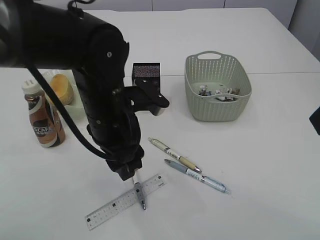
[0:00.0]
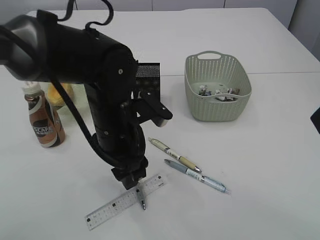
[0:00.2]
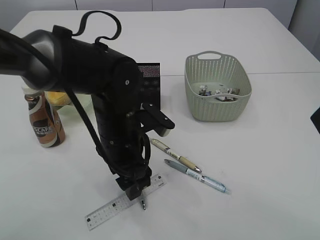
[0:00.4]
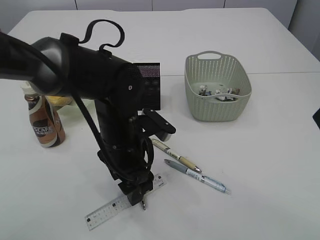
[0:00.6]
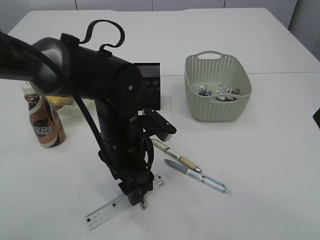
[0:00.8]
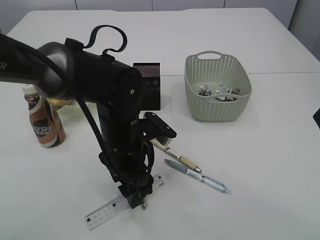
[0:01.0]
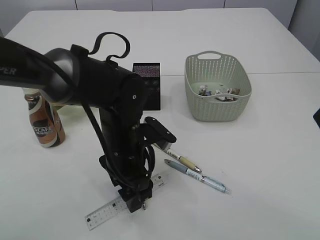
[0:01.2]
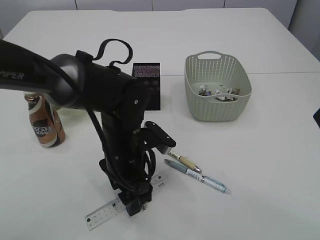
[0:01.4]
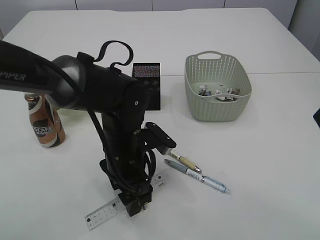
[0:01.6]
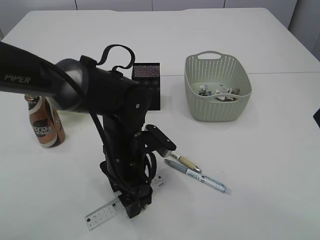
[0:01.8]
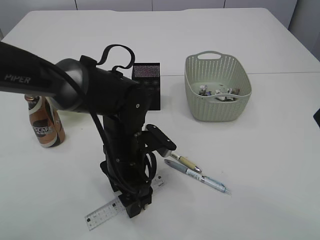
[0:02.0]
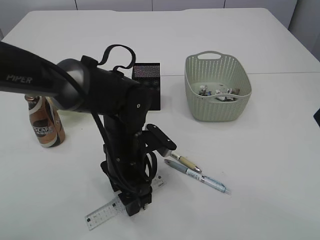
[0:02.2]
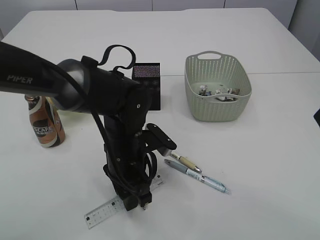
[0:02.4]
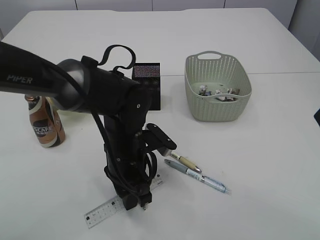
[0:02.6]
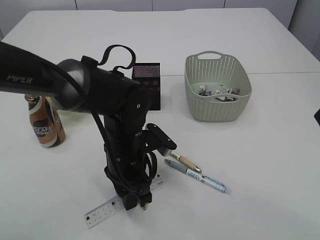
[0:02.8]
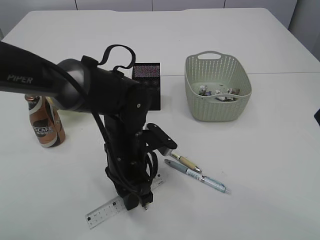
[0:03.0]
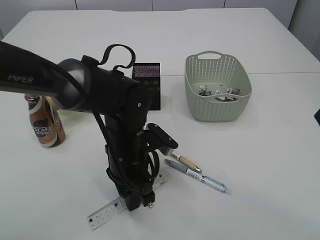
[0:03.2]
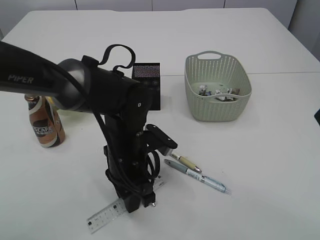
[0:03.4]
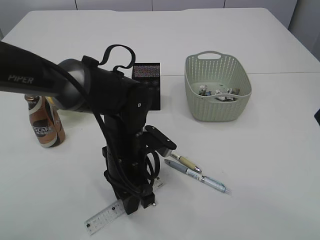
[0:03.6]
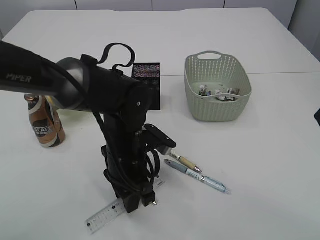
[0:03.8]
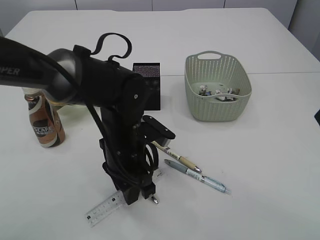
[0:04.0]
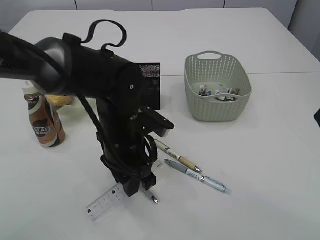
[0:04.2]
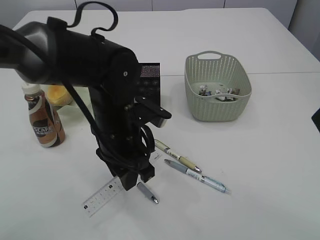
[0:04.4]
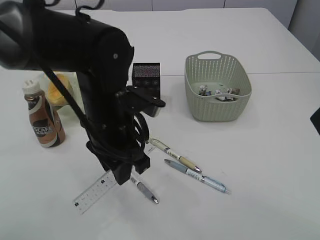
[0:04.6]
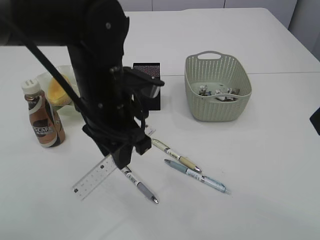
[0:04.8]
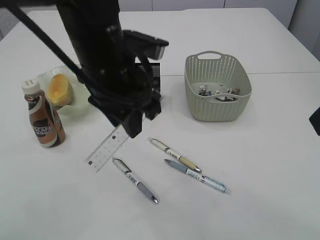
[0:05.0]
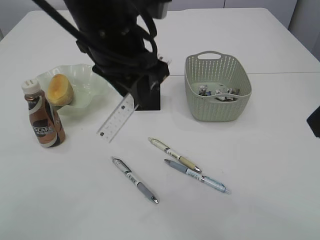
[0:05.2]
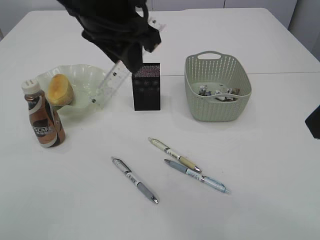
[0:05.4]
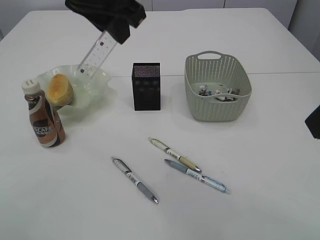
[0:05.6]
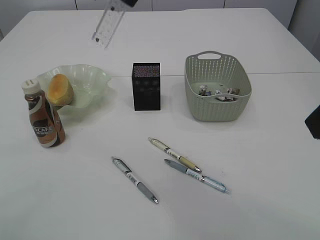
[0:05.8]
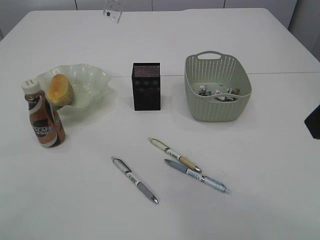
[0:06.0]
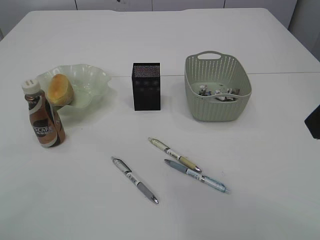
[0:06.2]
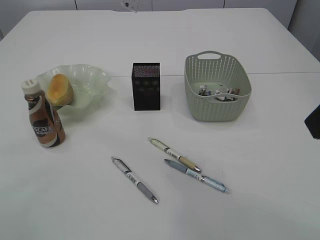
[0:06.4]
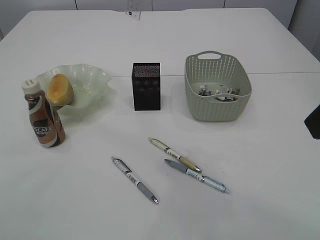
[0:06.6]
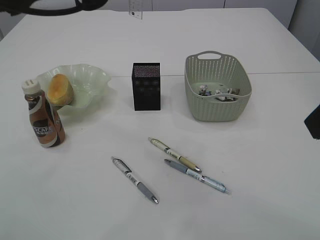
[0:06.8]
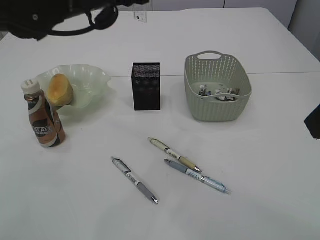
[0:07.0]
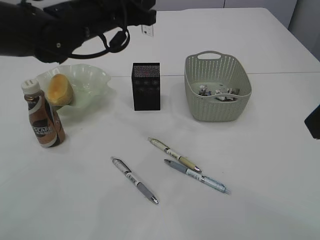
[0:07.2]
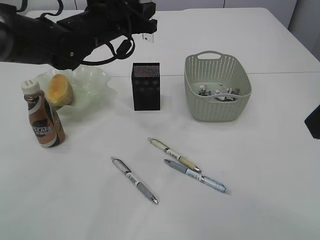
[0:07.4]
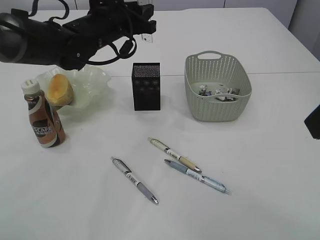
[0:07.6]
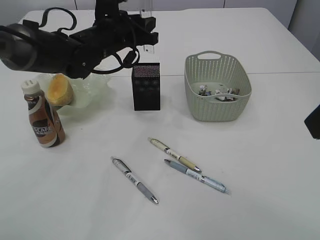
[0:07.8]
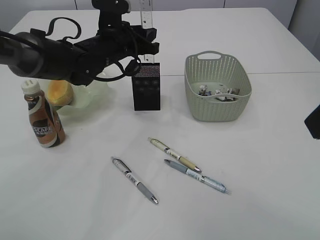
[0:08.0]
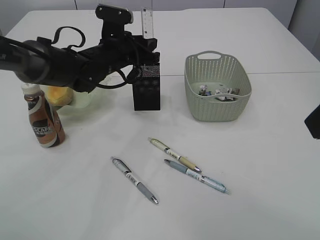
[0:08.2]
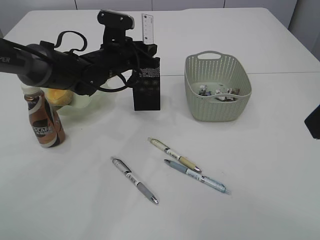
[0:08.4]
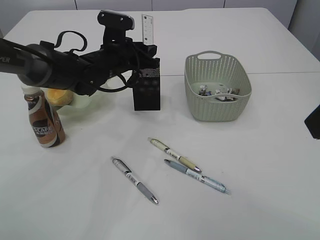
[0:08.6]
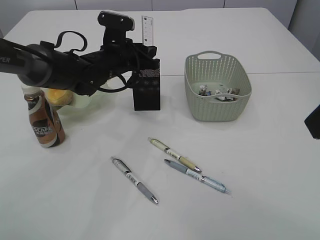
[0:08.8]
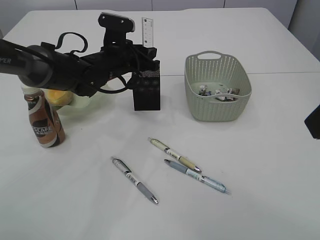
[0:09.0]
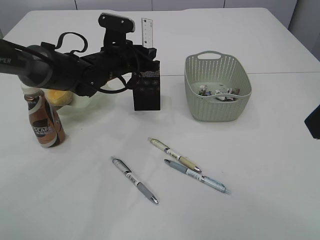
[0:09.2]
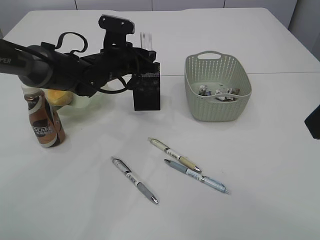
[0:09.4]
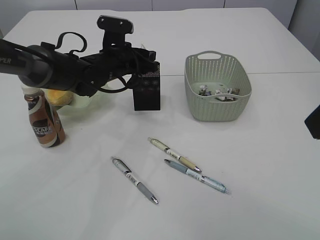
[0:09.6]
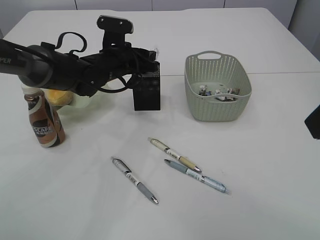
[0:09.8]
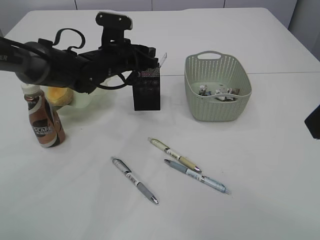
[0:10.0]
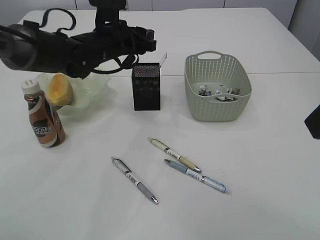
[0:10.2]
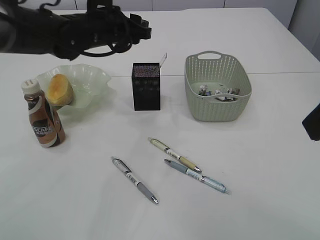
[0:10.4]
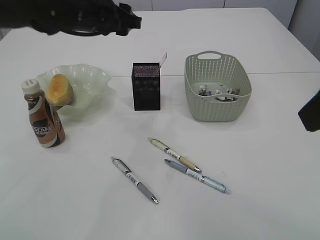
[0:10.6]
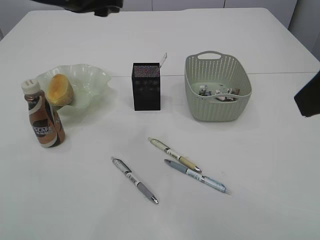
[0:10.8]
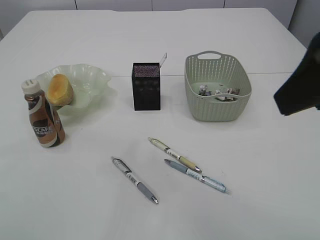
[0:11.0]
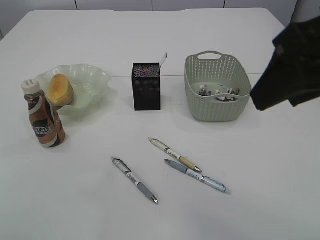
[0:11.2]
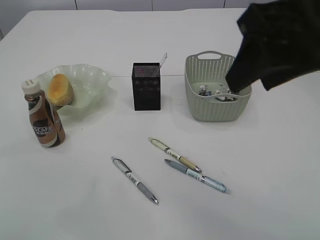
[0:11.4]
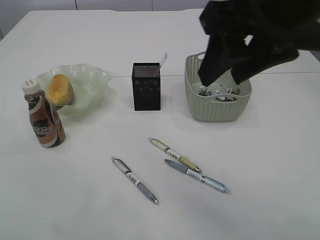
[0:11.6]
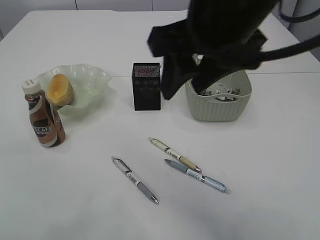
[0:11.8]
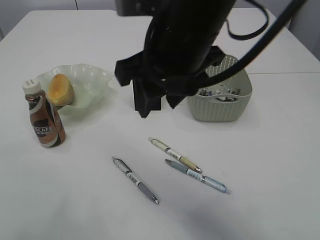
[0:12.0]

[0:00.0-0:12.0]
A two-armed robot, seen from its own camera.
Step, 0:00.0 to 0:04.6: pick up the ruler.
Step, 0:04.8 to 0:10.2: Place the ruler into the pen holder.
0:00.0 to 0:01.6: The left gripper shifts roughly 10 cm downward.
0:01.6 to 0:03.0: The left gripper closes up.
0:03.0 to 0:04.4: The left gripper shifts some 5 cm upward.
0:04.4 to 0:06.0: The left gripper moves upward, about 25 cm.
0:06.0 to 0:07.6: The left gripper is displaced downward and forward by roughly 25 cm.
0:07.6 to 0:09.0: The left gripper goes about 10 cm downward.
0:09.0 to 0:10.4: The left gripper is displaced upward by approximately 5 cm.
0:10.4 to 0:12.0: The left gripper goes roughly 35 cm upward, backward and to the left. The right gripper goes approximately 20 cm to the left and forward.

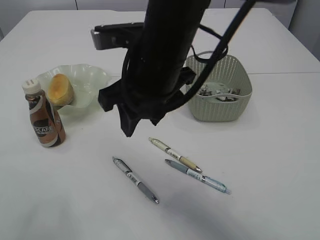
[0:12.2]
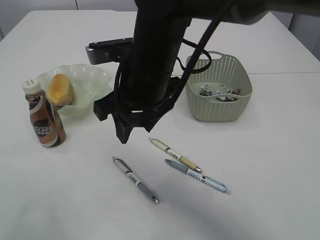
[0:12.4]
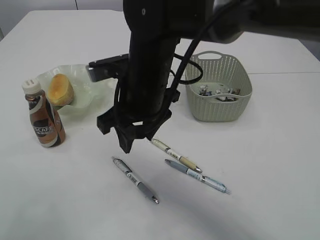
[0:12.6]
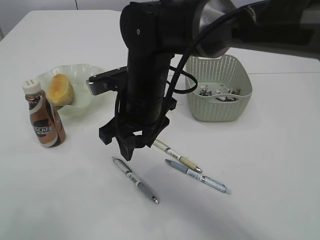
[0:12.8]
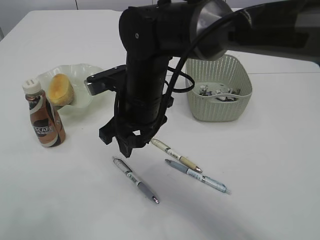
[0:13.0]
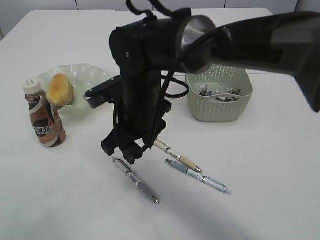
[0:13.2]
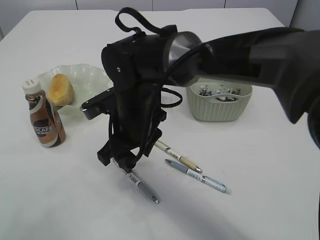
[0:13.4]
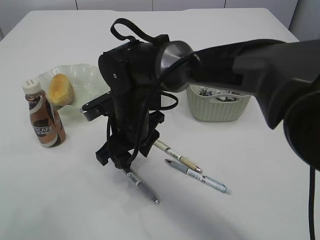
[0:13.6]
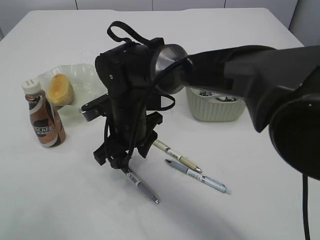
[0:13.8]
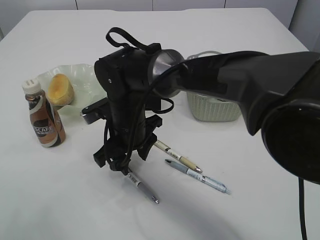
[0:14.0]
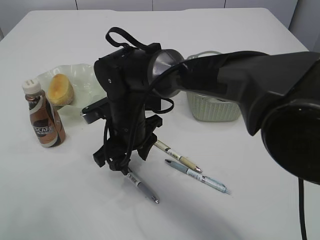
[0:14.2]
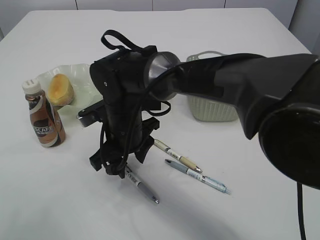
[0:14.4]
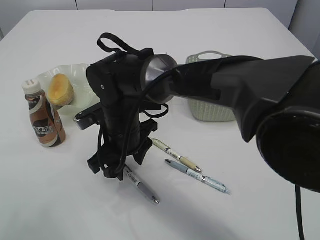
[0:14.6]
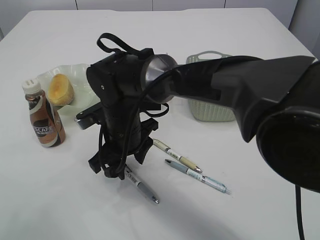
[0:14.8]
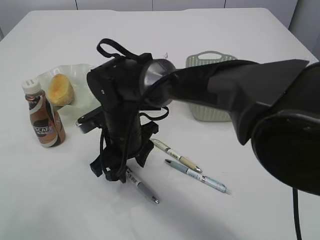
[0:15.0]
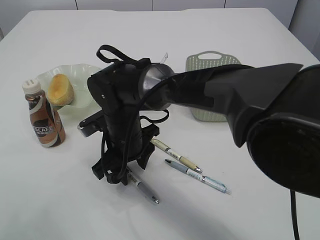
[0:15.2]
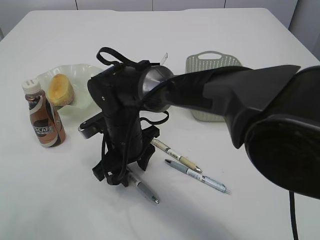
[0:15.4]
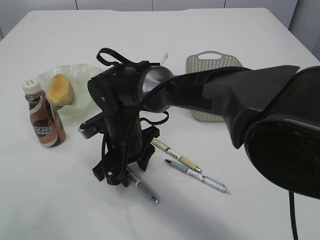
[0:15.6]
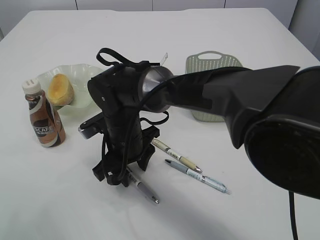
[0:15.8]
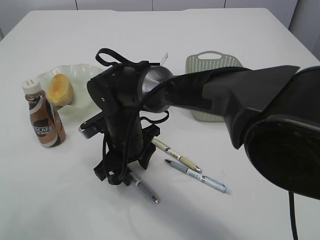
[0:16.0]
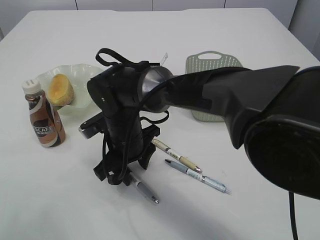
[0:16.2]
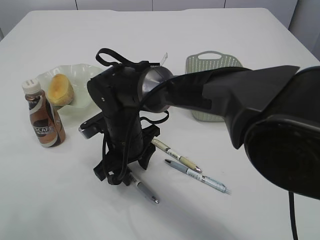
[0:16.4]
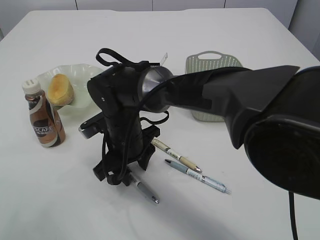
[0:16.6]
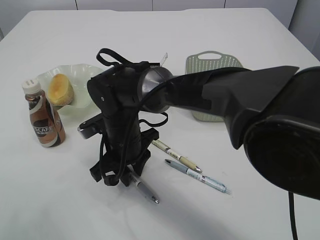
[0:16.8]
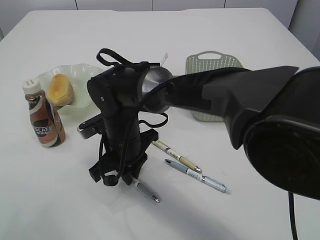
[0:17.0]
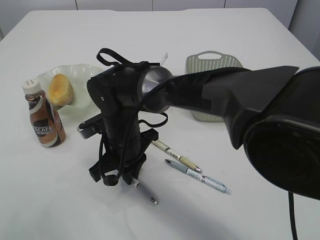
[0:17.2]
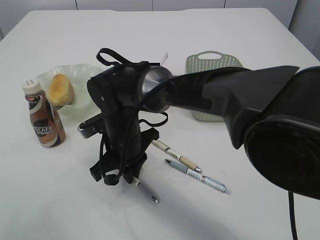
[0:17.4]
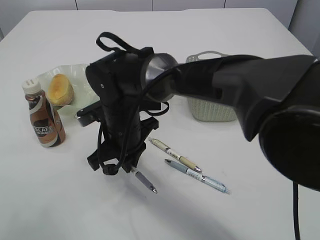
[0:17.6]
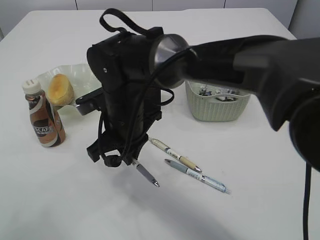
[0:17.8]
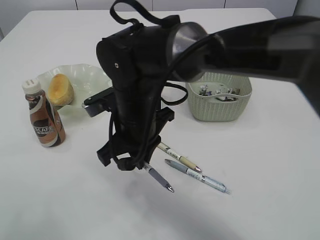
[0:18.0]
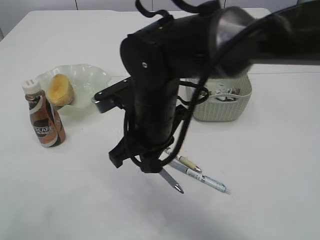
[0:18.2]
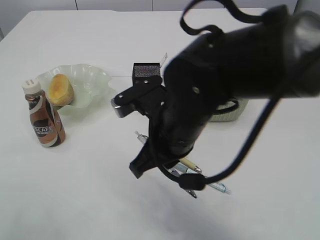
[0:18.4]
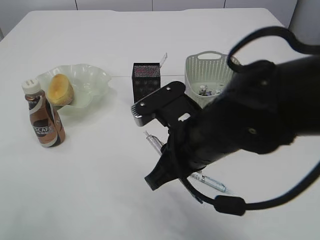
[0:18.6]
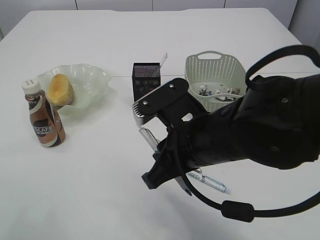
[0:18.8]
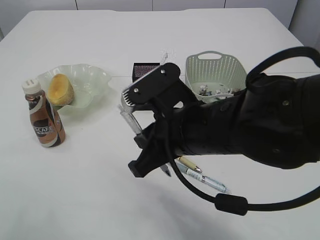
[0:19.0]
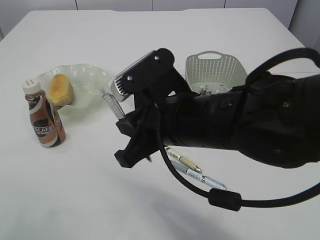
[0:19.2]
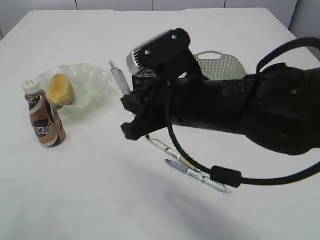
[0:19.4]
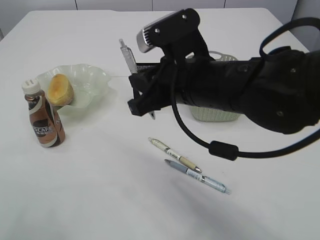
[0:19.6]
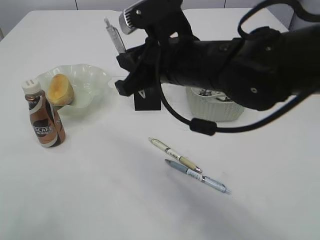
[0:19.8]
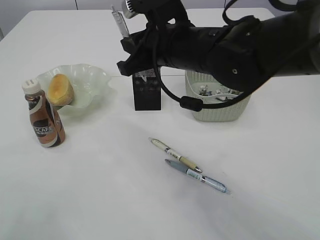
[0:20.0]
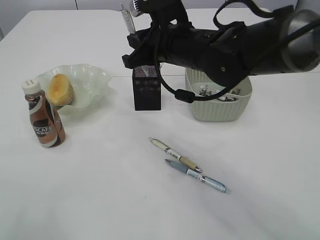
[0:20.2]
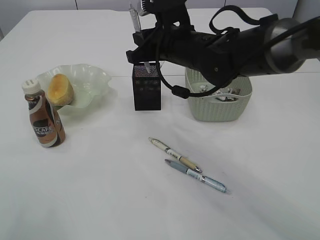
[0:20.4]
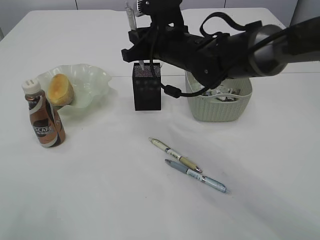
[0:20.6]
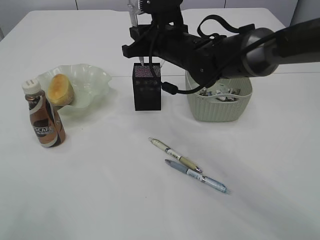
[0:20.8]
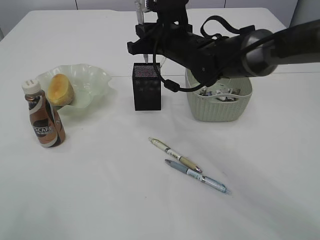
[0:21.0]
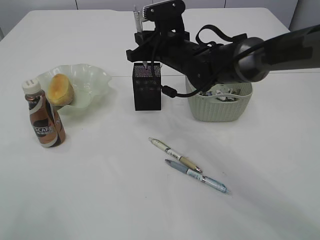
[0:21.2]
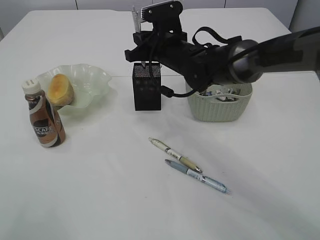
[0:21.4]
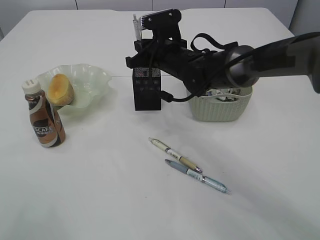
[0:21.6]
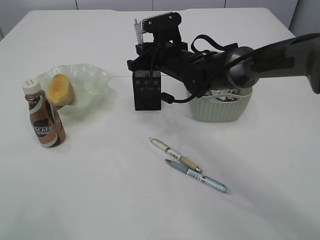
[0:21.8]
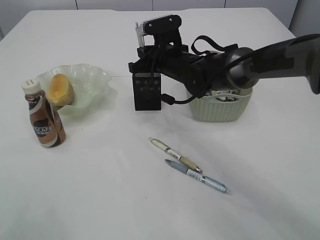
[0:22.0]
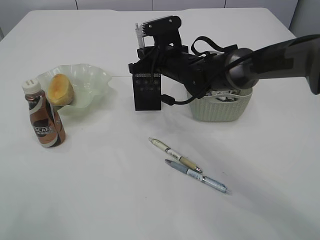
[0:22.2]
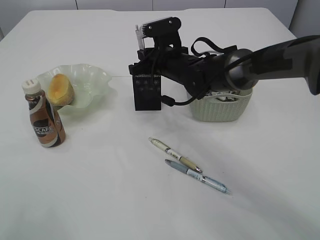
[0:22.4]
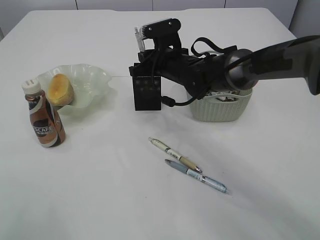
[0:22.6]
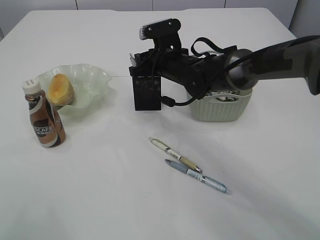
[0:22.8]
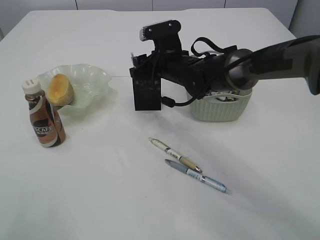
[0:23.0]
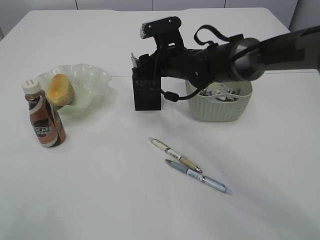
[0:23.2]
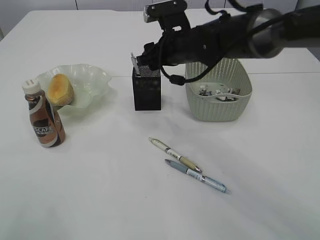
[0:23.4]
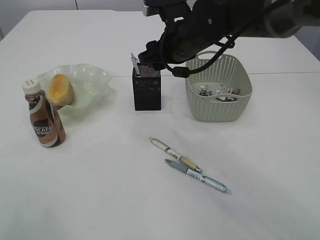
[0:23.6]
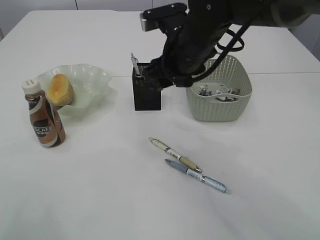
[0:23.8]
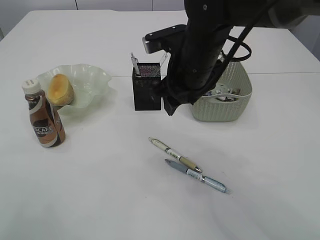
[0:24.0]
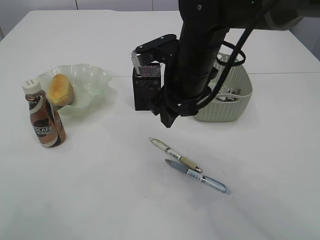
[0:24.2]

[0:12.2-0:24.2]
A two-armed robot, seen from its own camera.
Step, 0:12.2 to 0:17.6: Pick up the pen with right arm.
Step, 0:17.8 to 0:23.6: Place the pen into the pen holder.
0:12.2 to 0:13.8: The right gripper moves downward, some 15 cm.
0:13.8 to 0:15.2: There are only small adjustments of the grippers.
0:15.2 to 0:16.6: Neither gripper changes place.
0:16.6 to 0:18.2: The right gripper is displaced upward and backward by approximately 10 cm, and closes.
0:18.2 to 0:19.8: The right gripper shifts some 10 cm upward and to the right, and goes backward and returns, about 5 cm each way.
0:19.8 to 0:21.2: The right gripper is displaced forward by some 15 cm.
0:21.2 to 0:22.6: The grippers move only a little.
0:22.6 to 0:24.2: The right gripper goes approximately 15 cm backward and upward, and opens its fingers.
